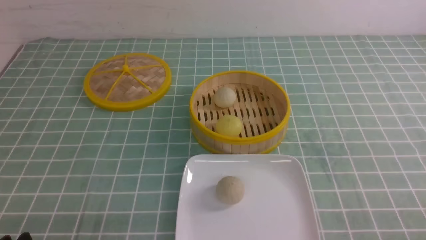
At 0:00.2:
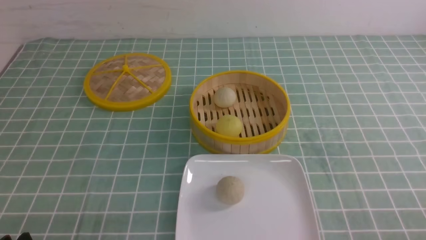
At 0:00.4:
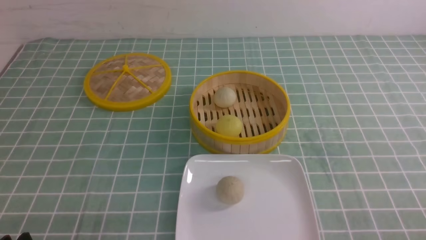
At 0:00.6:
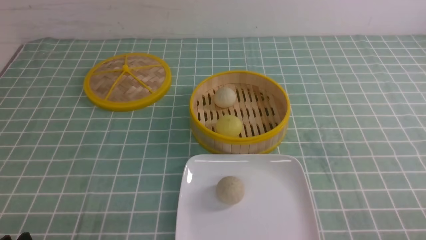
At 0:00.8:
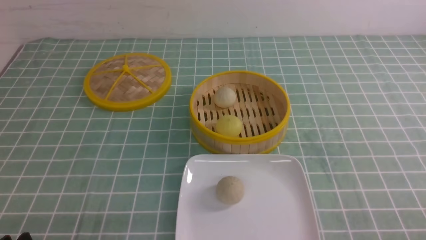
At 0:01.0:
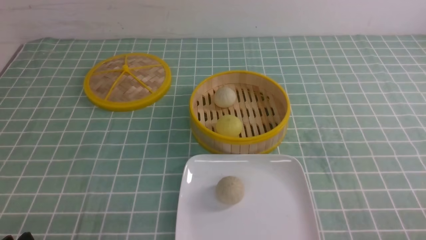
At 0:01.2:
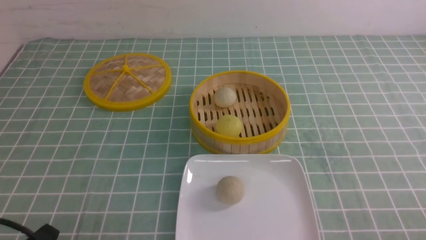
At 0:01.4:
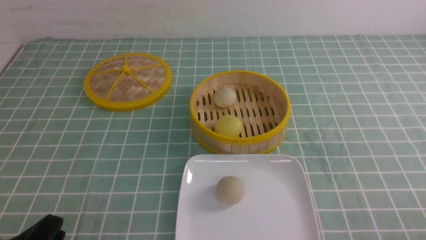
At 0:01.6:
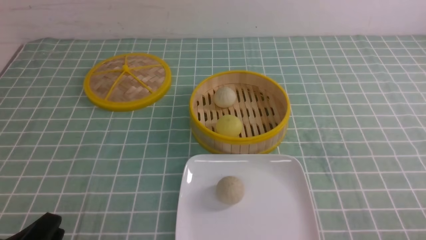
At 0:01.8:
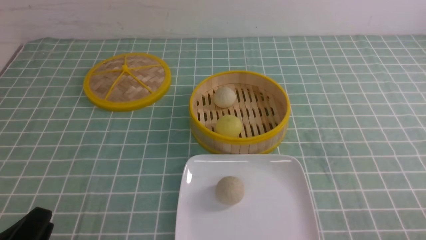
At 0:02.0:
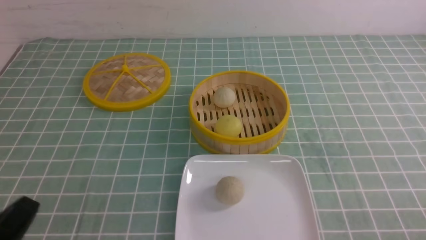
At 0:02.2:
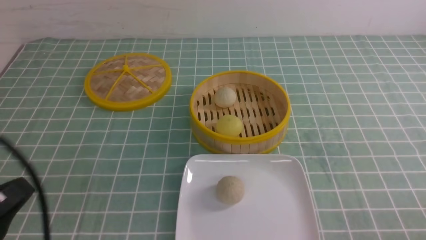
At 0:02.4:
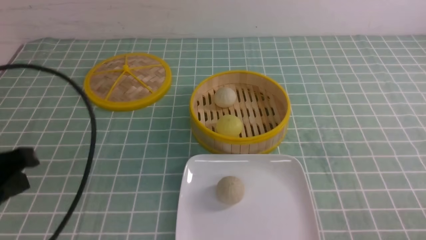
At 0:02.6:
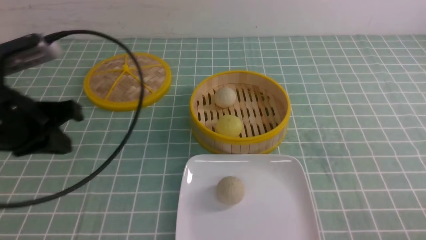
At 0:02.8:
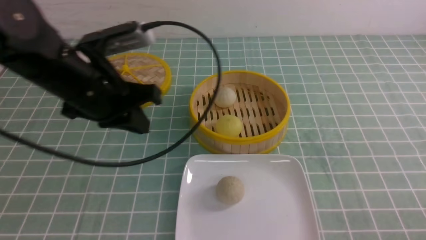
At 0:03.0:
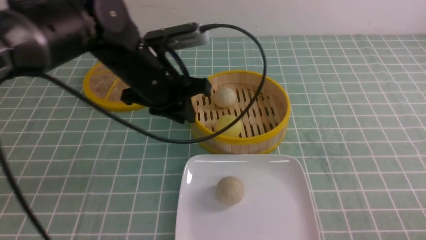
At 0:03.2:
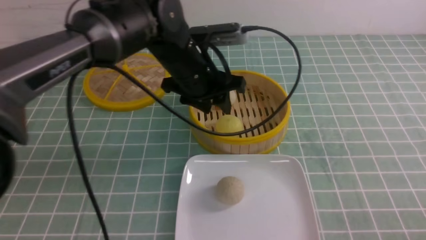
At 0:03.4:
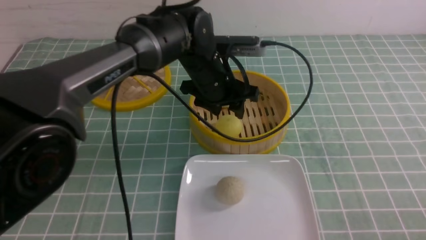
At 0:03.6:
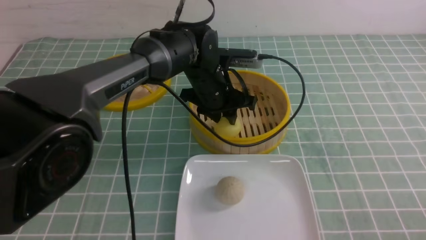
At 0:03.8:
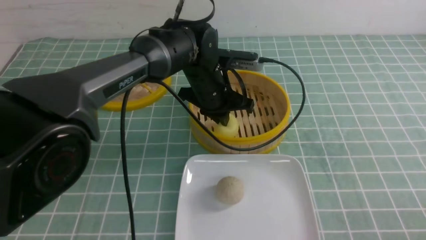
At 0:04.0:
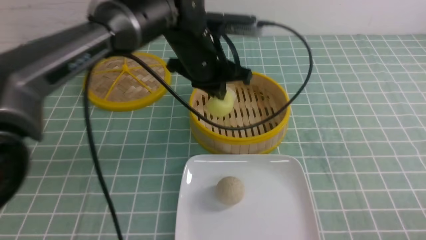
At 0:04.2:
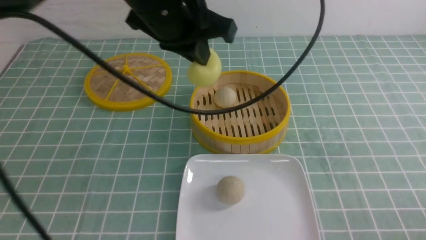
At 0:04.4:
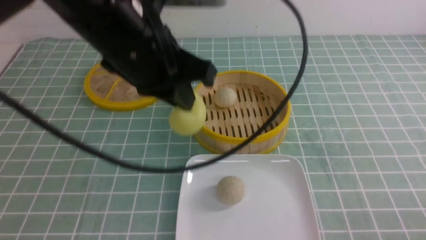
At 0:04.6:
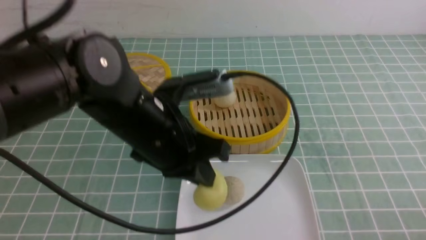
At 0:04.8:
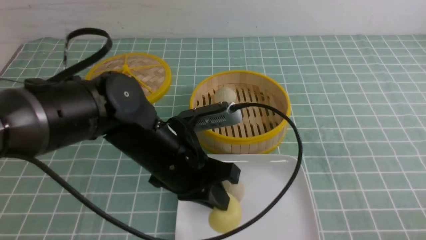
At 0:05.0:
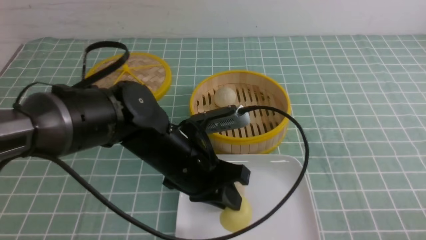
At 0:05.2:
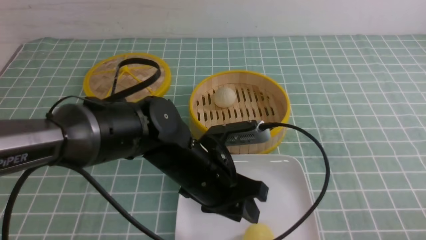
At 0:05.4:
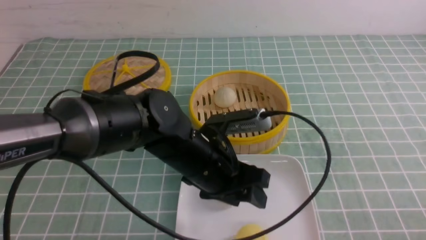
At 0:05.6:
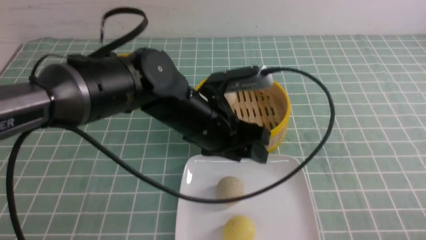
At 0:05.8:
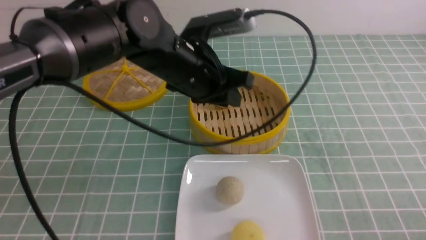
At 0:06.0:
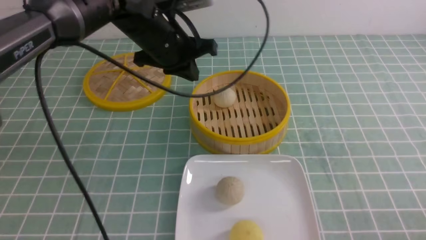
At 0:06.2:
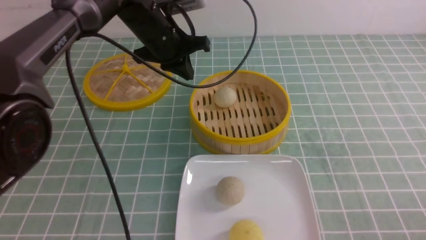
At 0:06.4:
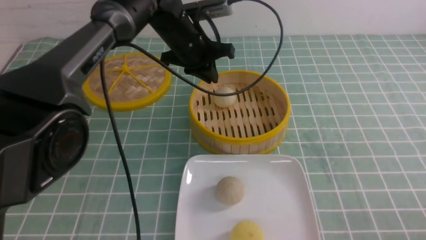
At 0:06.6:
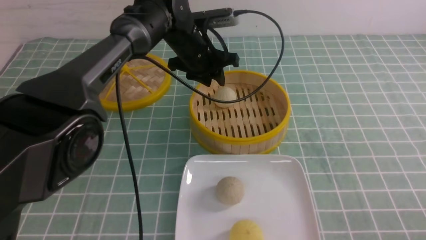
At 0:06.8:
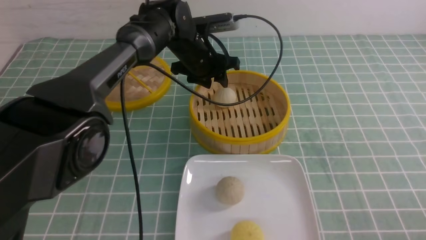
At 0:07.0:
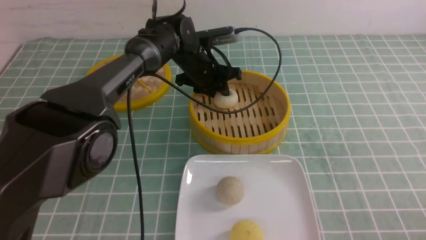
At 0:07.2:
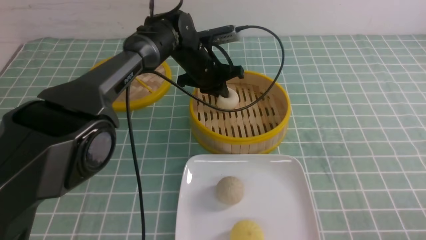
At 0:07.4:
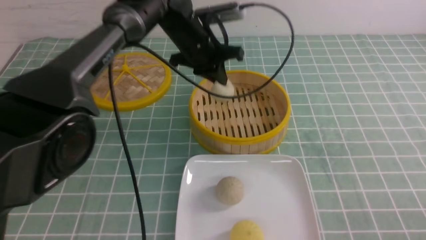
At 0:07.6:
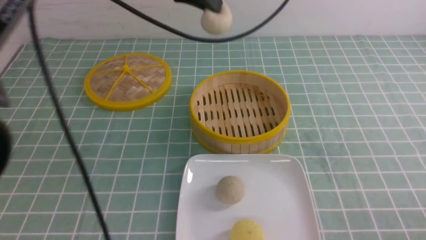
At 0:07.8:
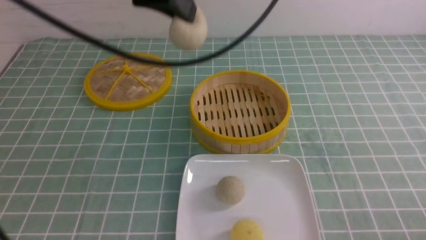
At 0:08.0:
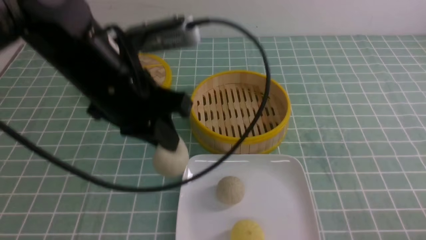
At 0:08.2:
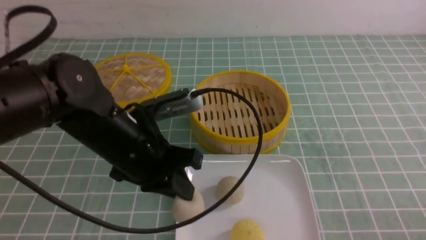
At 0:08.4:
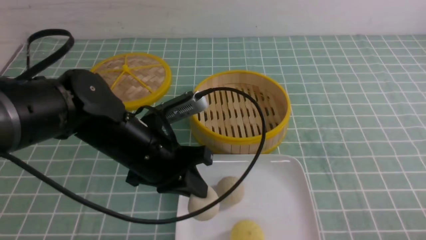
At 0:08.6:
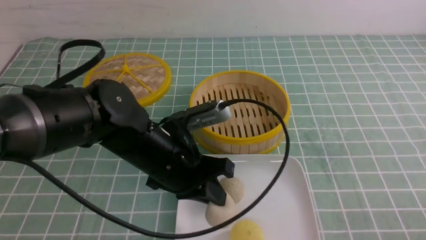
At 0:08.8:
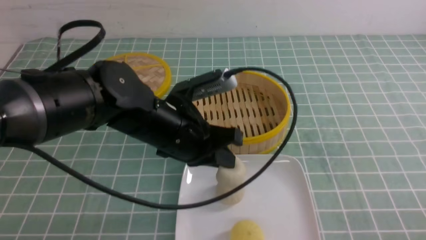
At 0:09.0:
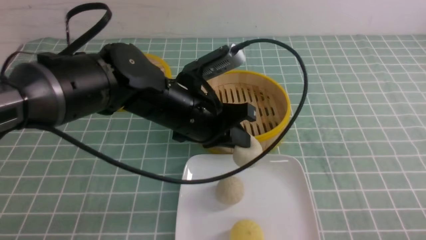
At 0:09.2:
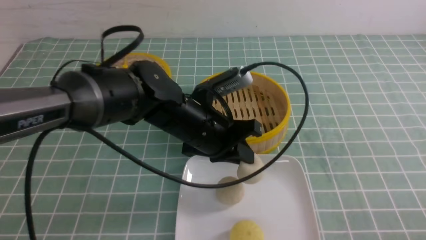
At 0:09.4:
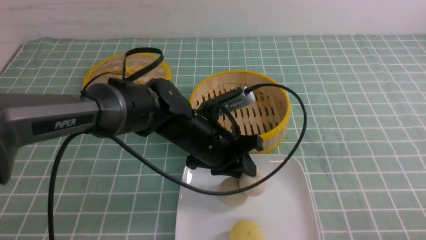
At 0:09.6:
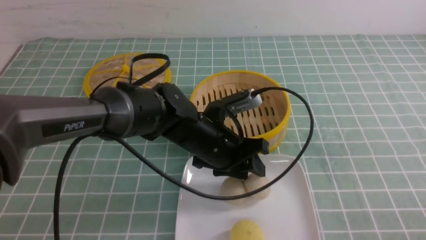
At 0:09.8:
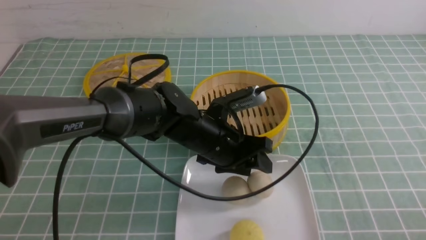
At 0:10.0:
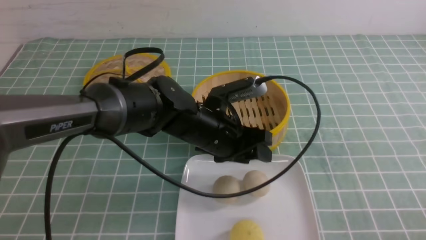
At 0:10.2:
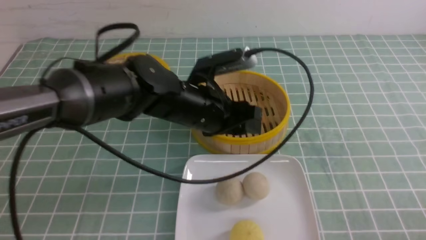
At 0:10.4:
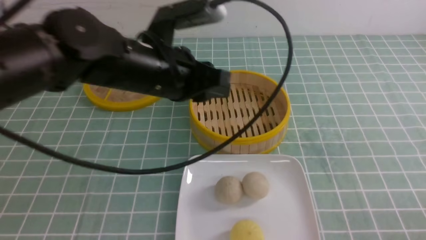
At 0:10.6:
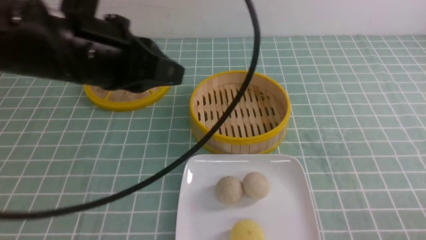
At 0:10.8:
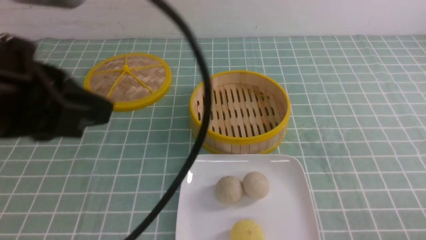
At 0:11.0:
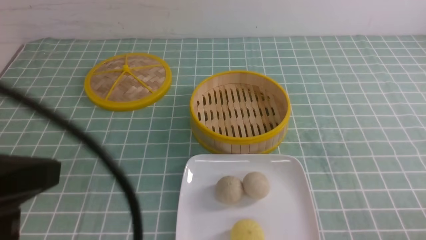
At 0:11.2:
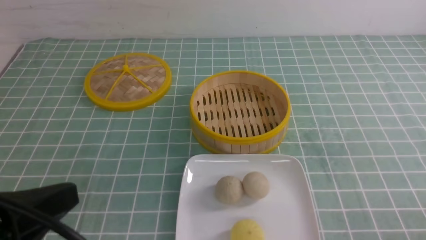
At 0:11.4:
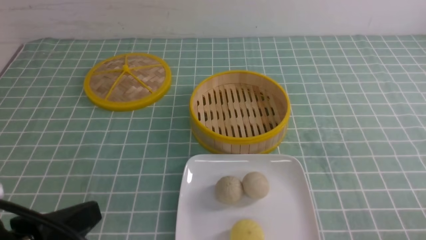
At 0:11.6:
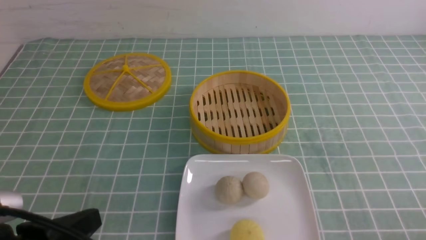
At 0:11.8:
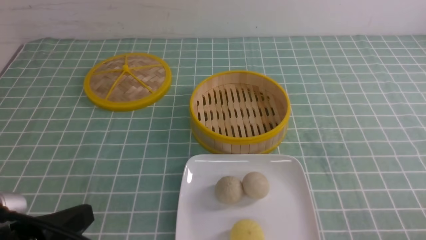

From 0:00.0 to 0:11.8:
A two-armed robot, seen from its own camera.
Step, from 0:00.0 to 0:03.8: use the left arm to grab the steamed stuffed bun that is closest to it.
Step, from 0:04.0 to 0:05.0: use the left arm to put the steamed stuffed bun into the plate.
Step, from 0:05.2 to 0:07.2: use the left arm to grab the steamed stuffed bun that is closest to it.
Step, from 0:07.4 to 0:09.6: use the left arm to put the steamed stuffed bun into the plate.
From 0:01.4 to 0:03.0: The left gripper goes approximately 35 cm forward and to the right, and closes, then reopens.
From 0:03.0 to 0:04.4: The left gripper travels backward and upward by about 10 cm, and closes up.
From 0:04.4 to 0:06.0: The left gripper is displaced forward by roughly 15 cm, and opens, then closes again.
From 0:06.0 to 0:07.4: The left gripper moves some 10 cm downward and comes back, and opens, then closes once more.
From 0:07.4 to 0:08.8: The left gripper is displaced backward and downward by about 20 cm.
From 0:08.8 to 0:10.4: The left gripper travels upward by approximately 10 cm, and opens, then closes again.
From 0:10.4 to 0:11.8: The left gripper moves backward and to the left, approximately 25 cm, and closes up.

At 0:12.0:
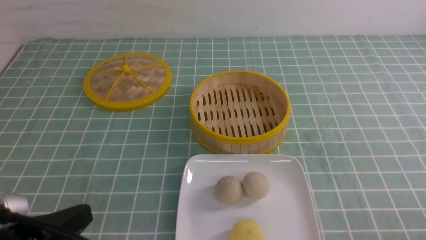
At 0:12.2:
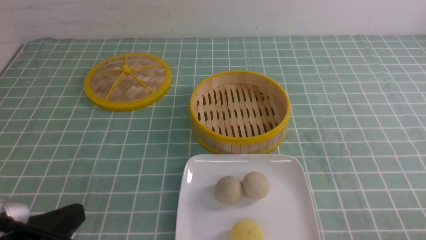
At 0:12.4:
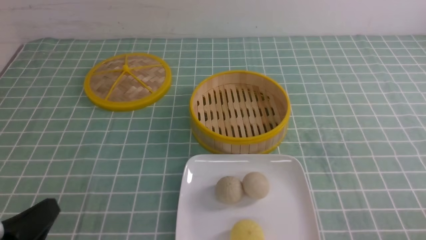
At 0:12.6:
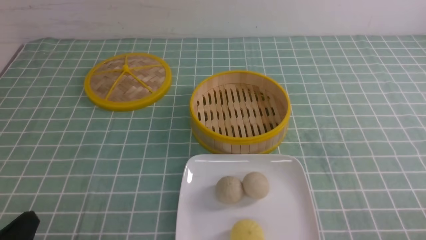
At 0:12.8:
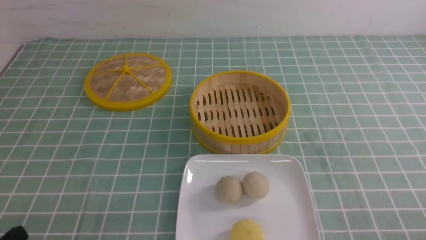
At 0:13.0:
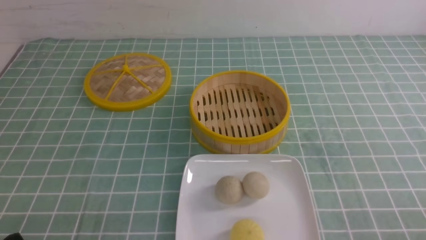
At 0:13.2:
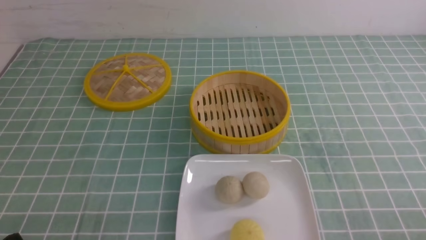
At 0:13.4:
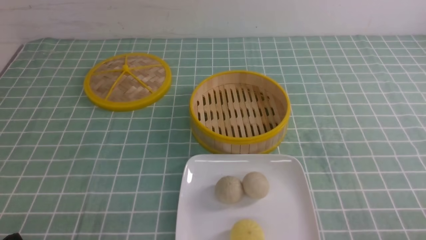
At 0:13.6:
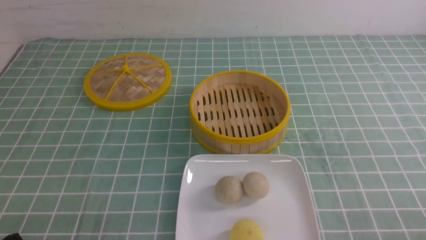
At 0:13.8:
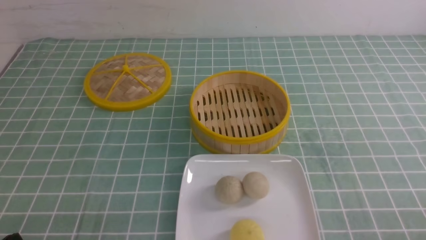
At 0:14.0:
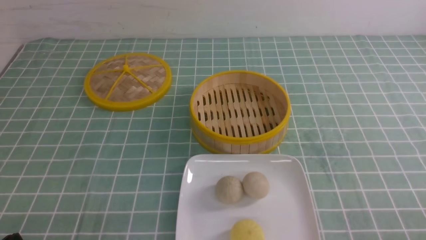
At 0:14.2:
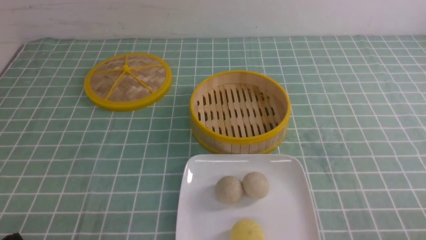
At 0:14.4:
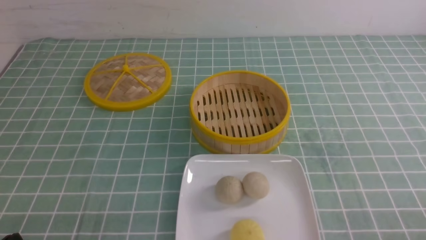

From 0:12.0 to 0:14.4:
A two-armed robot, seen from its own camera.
From 0:12.0 to 0:13.2: The left gripper shifts approximately 10 cm downward.
From 0:13.2 to 0:14.4: Both grippers stay about where they are.
